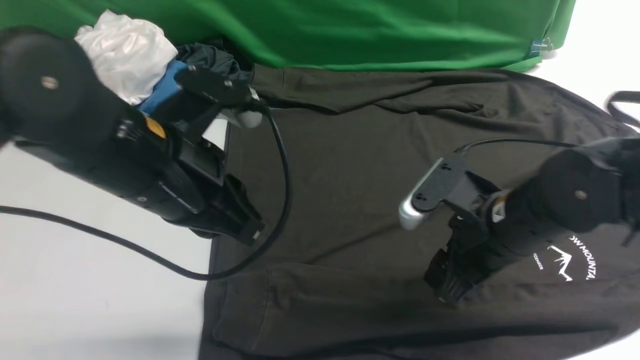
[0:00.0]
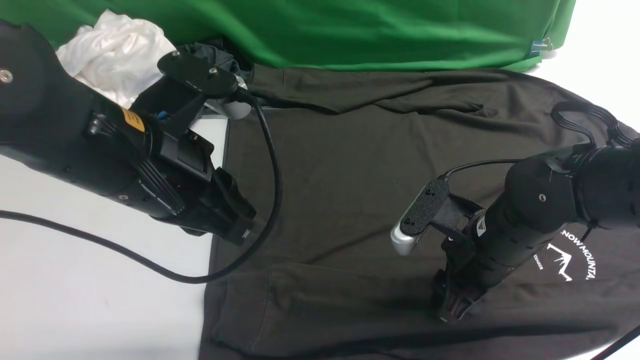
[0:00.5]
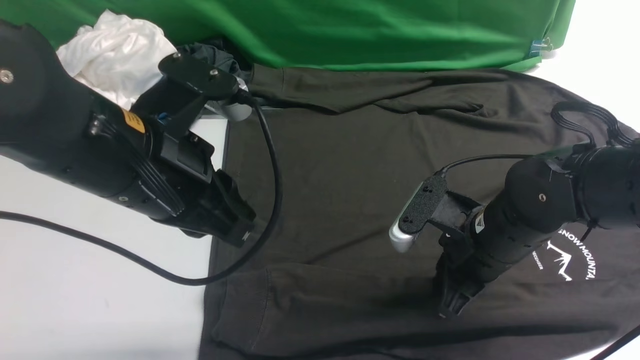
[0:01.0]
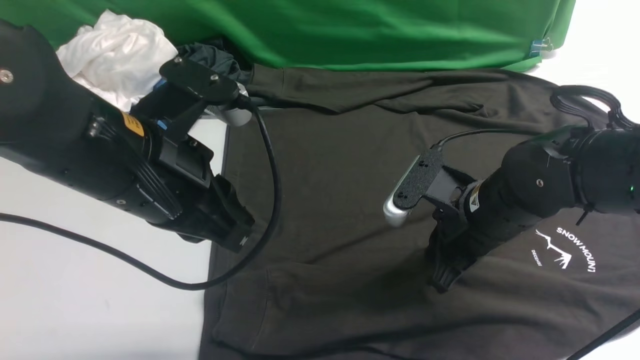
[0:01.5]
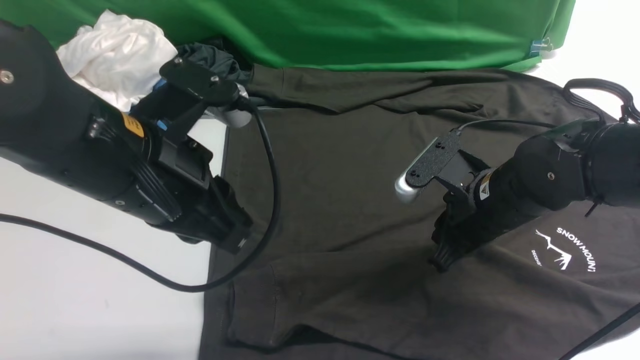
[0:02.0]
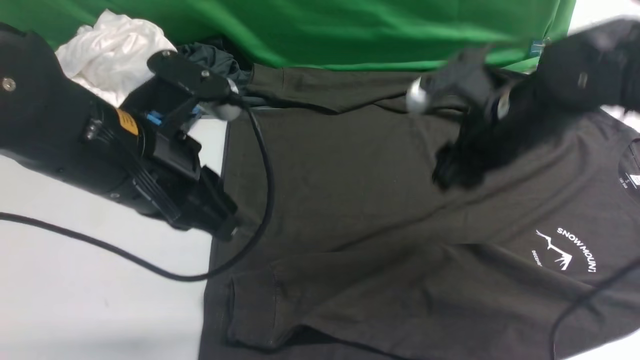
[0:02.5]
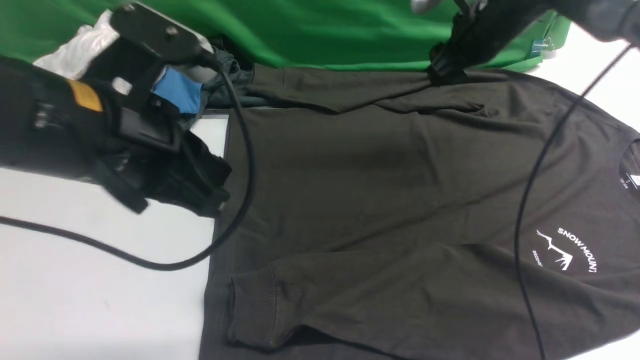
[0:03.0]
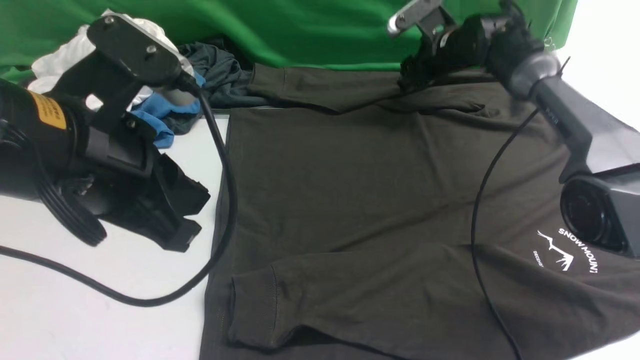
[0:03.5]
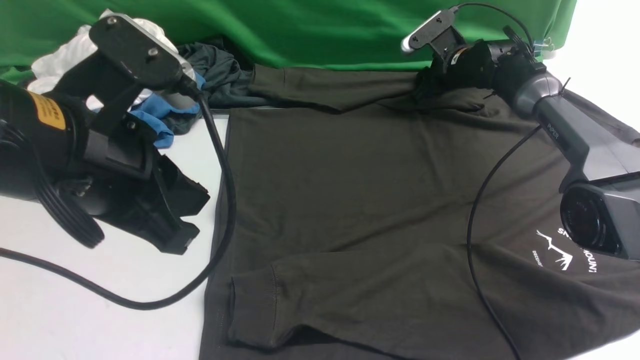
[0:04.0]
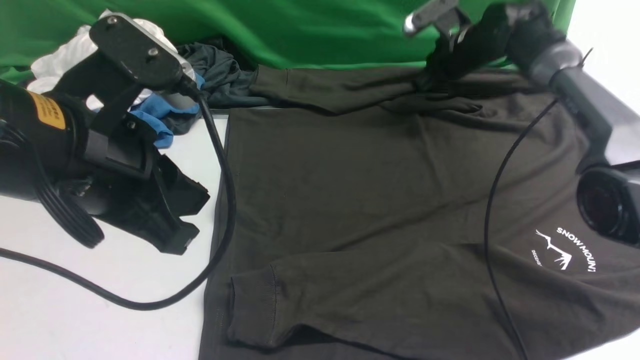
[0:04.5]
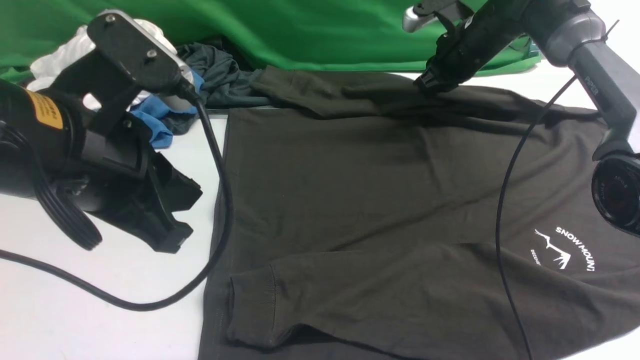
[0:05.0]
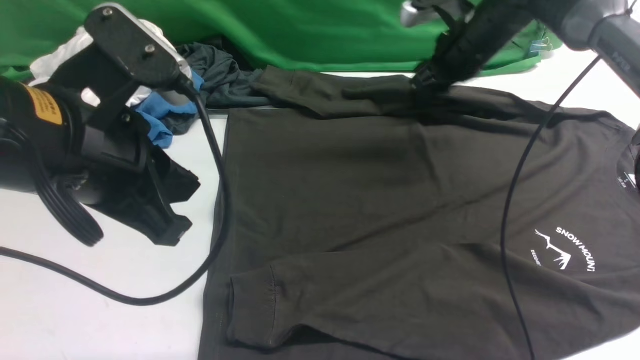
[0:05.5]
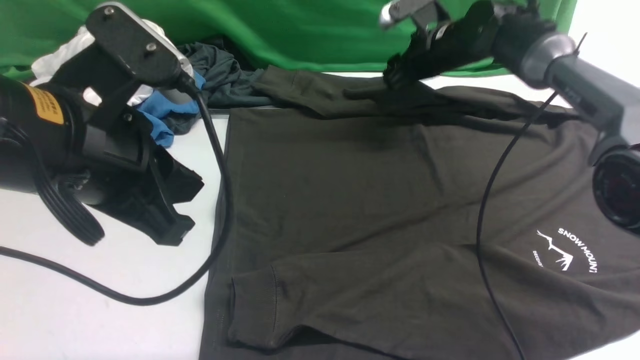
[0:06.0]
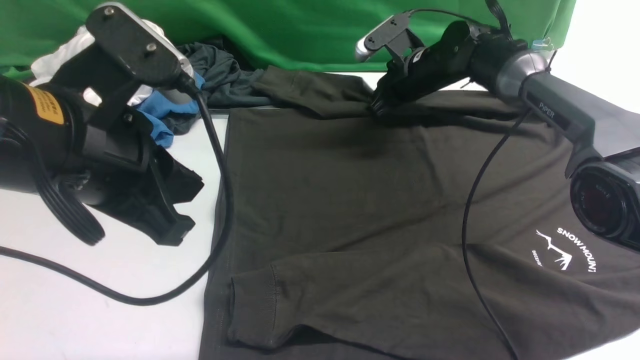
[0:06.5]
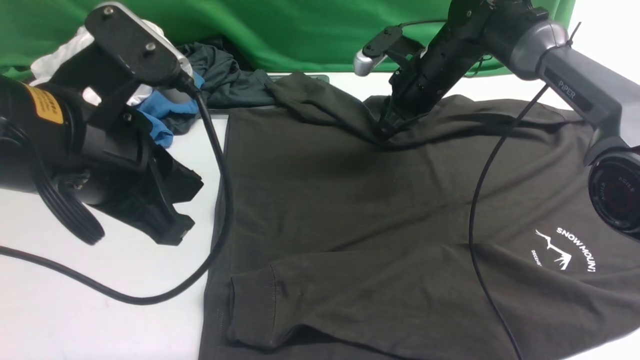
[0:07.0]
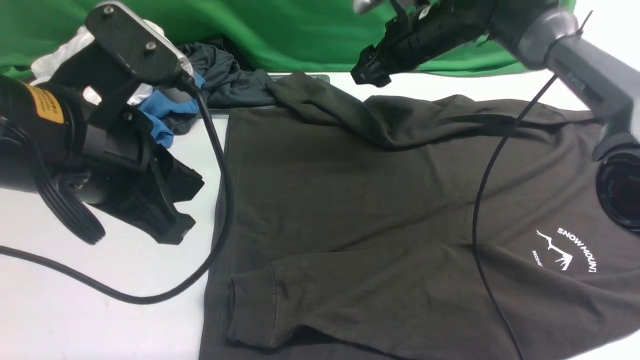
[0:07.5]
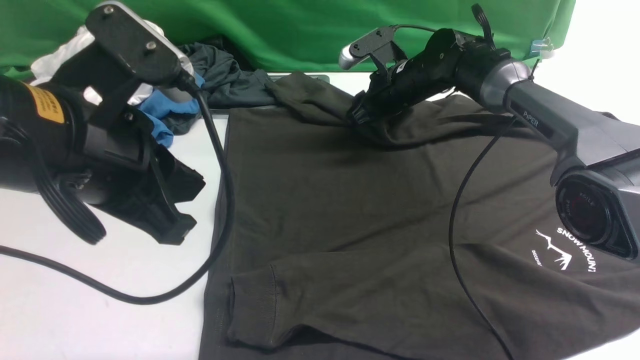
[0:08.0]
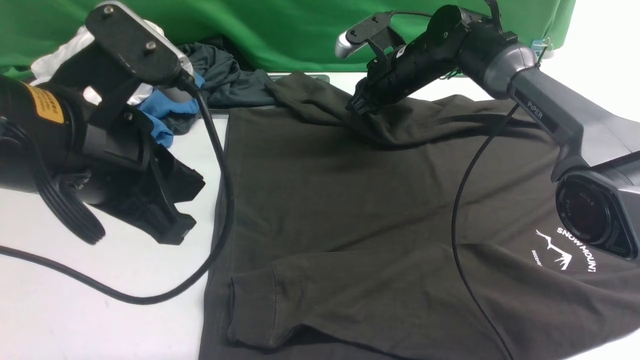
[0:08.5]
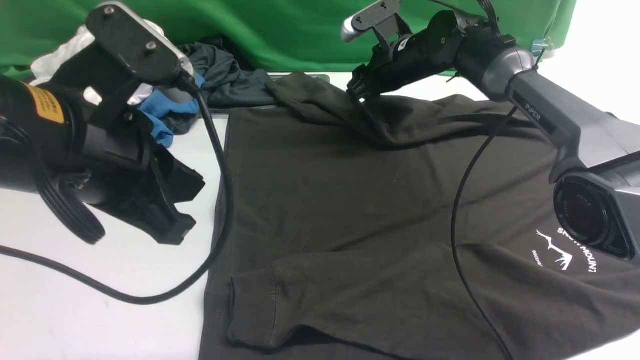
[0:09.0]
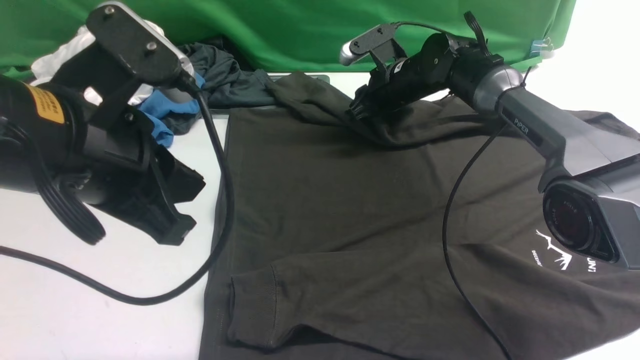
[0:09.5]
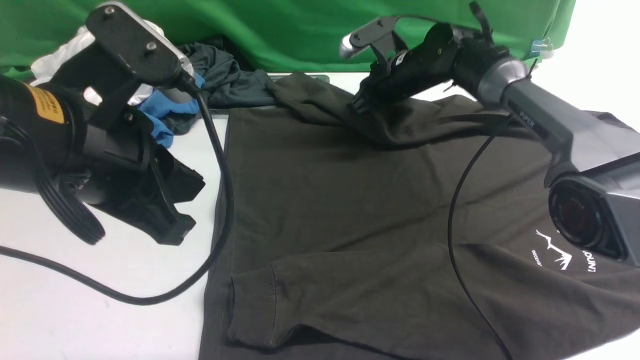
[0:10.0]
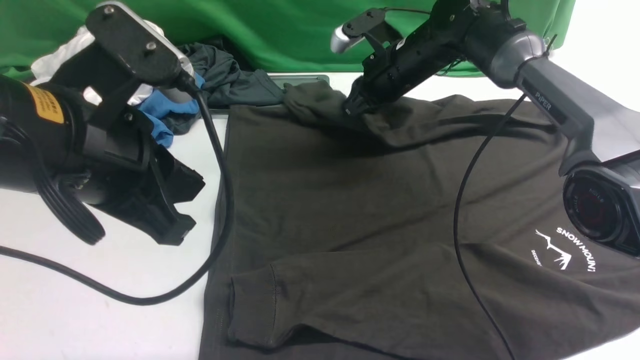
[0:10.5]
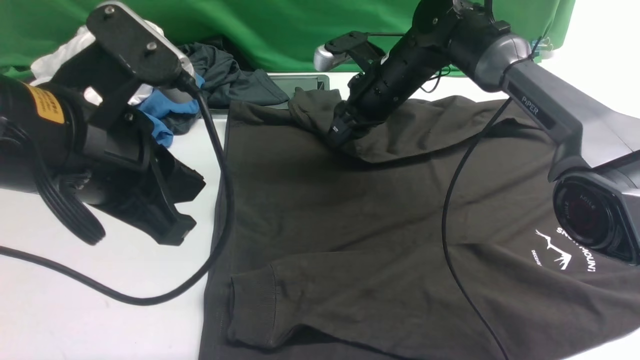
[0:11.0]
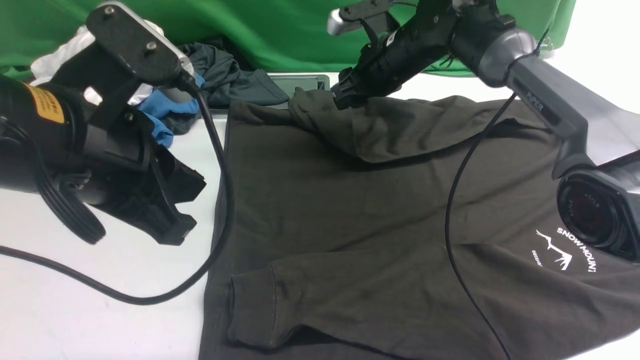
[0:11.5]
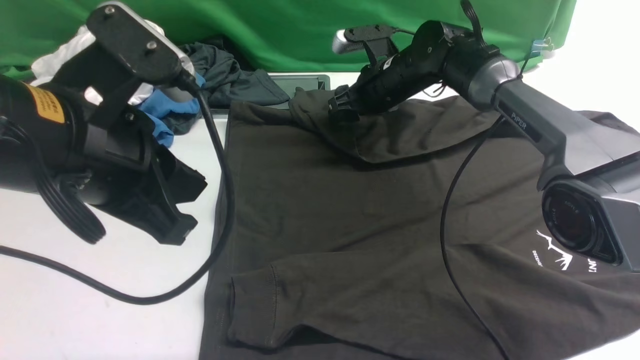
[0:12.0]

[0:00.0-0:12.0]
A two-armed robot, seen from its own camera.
0:00.0 to 0:02.0: The right gripper closes.
0:02.0 to 0:04.0: The right gripper heads forward, covering approximately 30 cm, and opens, then closes again, while the left gripper shifts by some 5 cm.
0:04.0 to 0:06.0: The right gripper shifts some 10 cm upward and to the left, and closes, then reopens.
0:06.0 to 0:08.0: The right gripper shifts by approximately 5 cm, and closes, then reopens.
0:08.0 to 0:10.0: The right gripper closes.
0:10.0 to 0:12.0: The right gripper opens up.

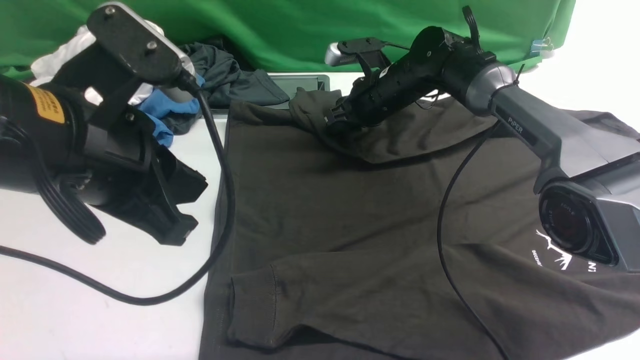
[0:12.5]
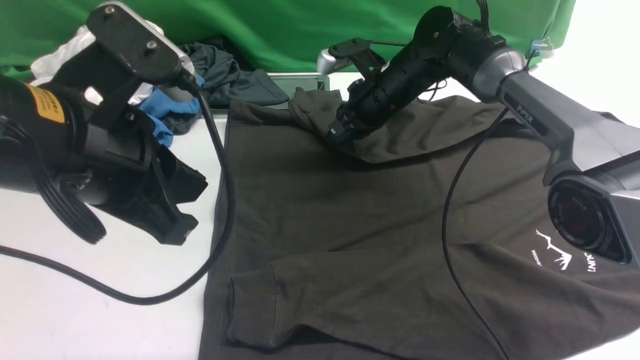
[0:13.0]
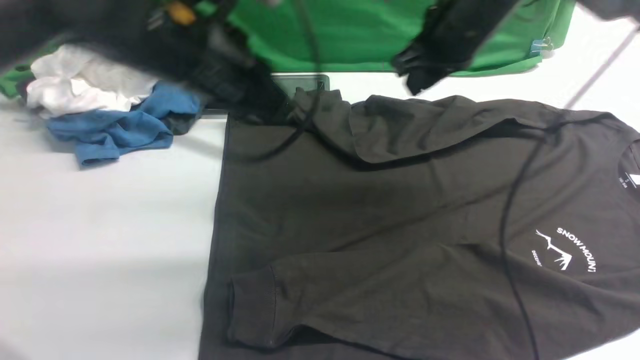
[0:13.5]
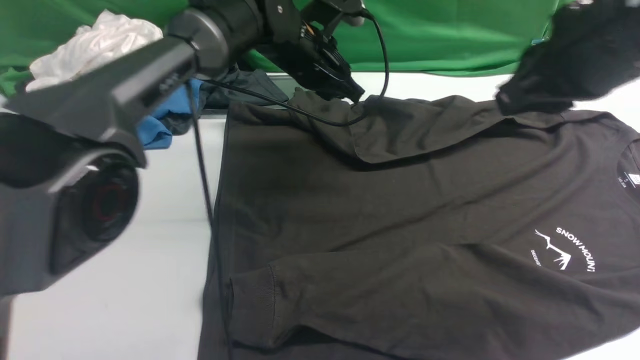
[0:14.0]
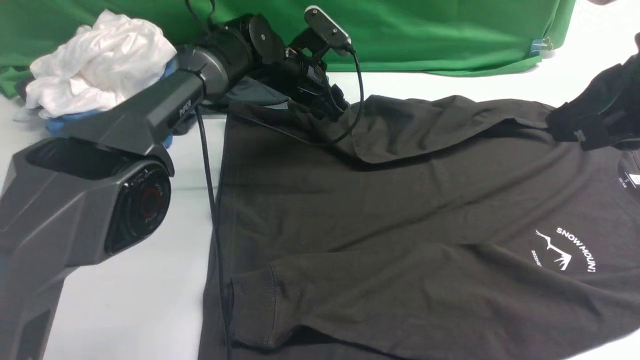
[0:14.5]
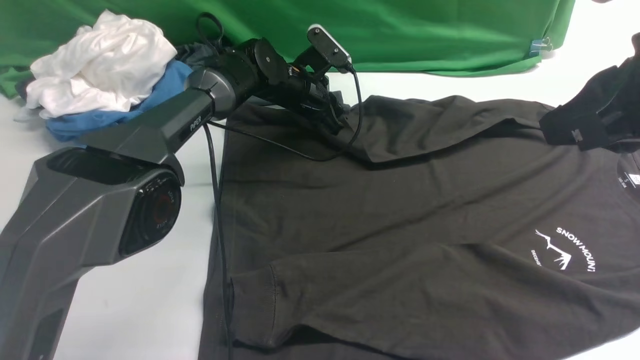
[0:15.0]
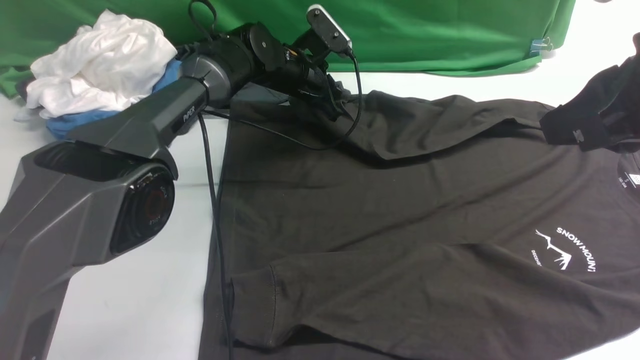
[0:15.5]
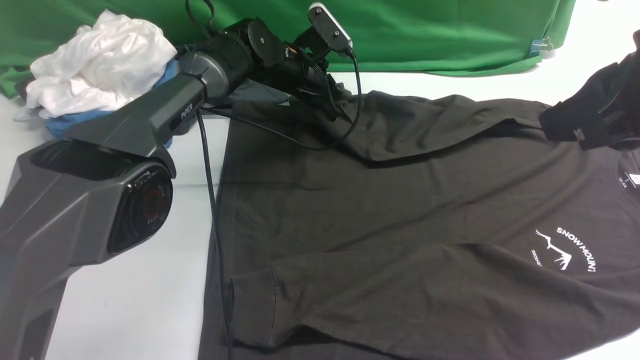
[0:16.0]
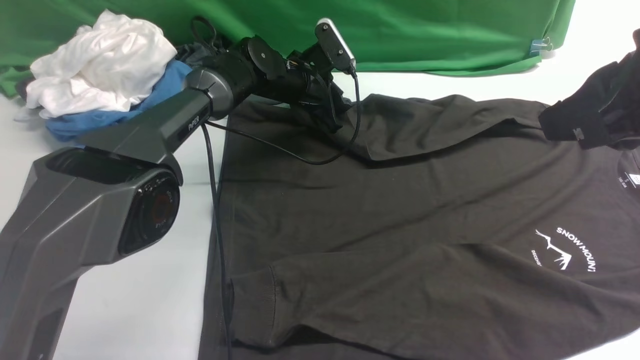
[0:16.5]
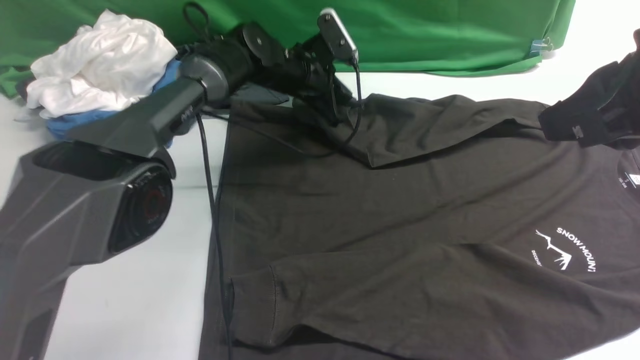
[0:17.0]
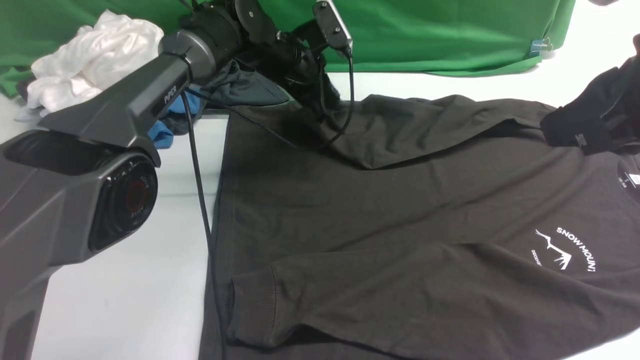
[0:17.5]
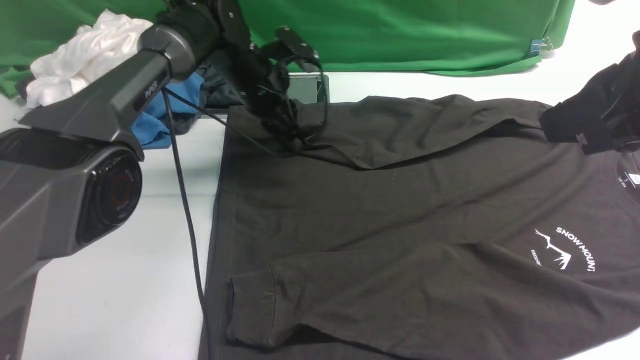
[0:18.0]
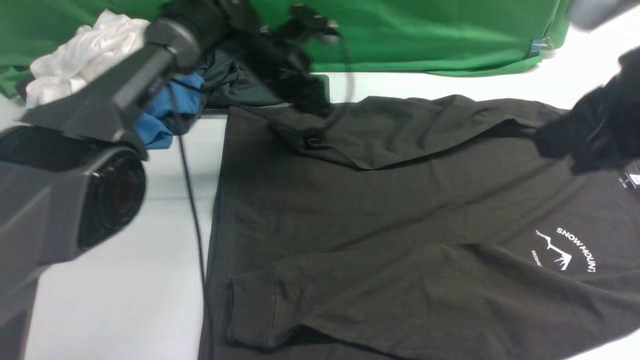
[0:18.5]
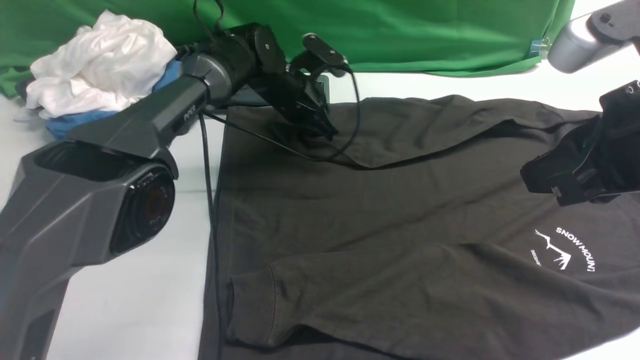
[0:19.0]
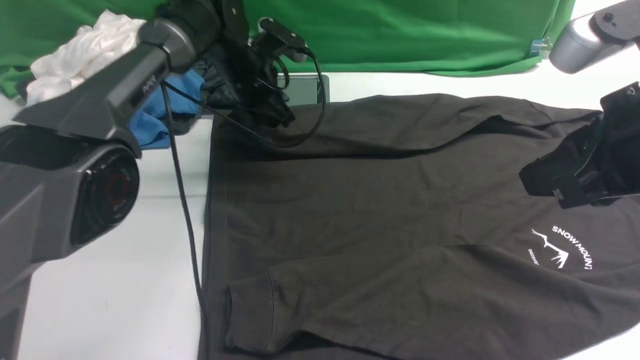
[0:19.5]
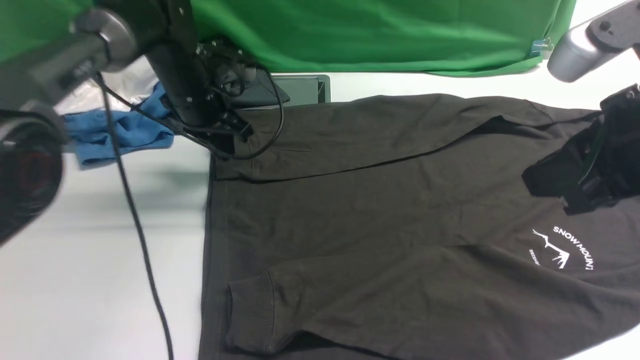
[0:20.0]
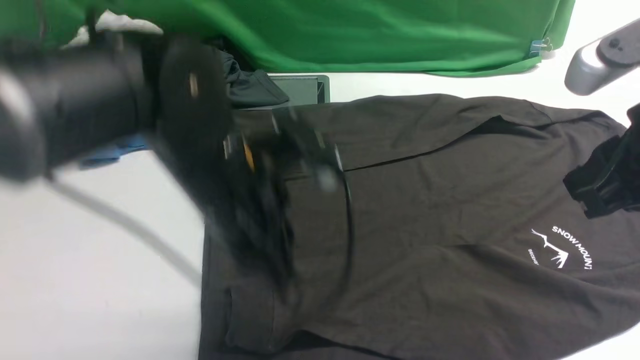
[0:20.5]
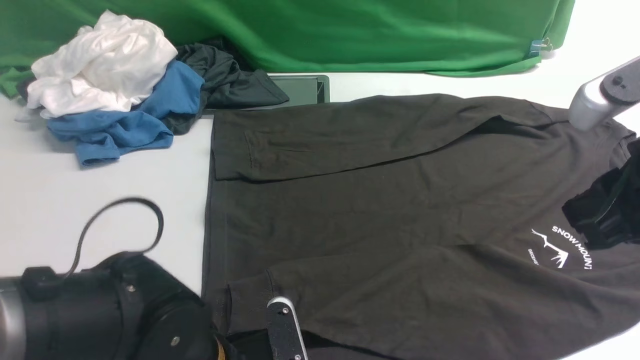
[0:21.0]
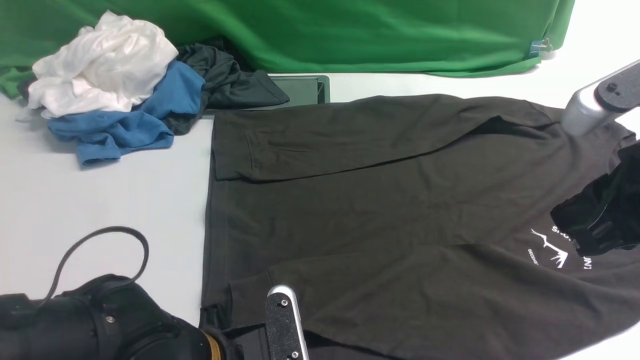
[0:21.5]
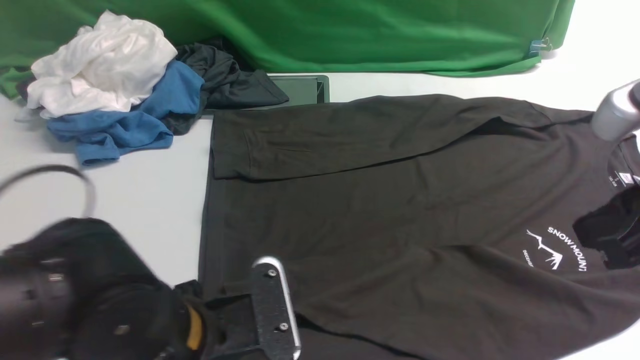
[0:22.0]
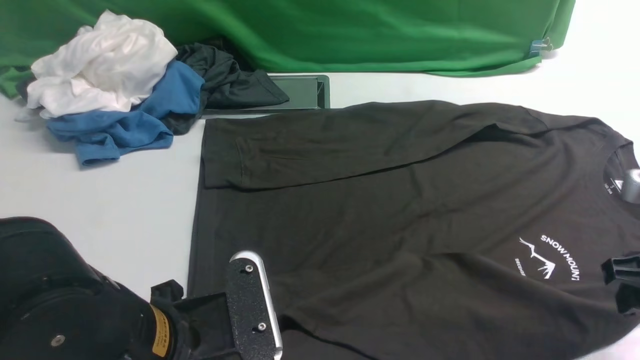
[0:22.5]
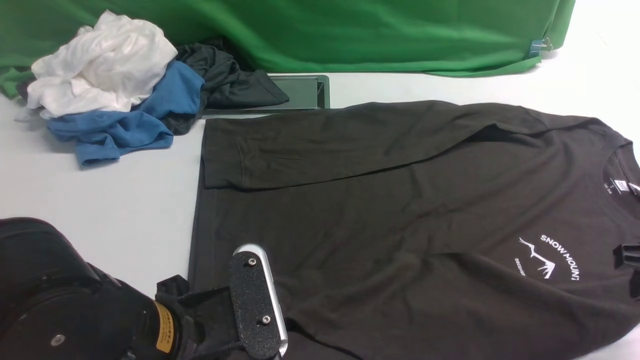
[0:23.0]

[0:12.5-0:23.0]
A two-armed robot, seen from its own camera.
Step, 0:12.5 to 0:20.0: use the left arm to drag and drop the cuff onto the cuff closest to the left arm.
0:12.5 to 0:14.5: The right gripper heads backward, upward and to the right, covering about 40 cm. Meanwhile the left gripper shifts some 40 cm forward and downward, and opens up.
0:14.5 to 0:16.5: The left gripper closes its fingers.
0:16.5 to 0:19.0: The left gripper closes its fingers.
0:19.0 to 0:21.0: The left gripper travels backward by roughly 40 cm, and opens.
0:21.0 to 0:23.0: The right gripper is displaced downward and to the right by some 15 cm, and opens. The left gripper moves upward, approximately 5 cm, and closes its fingers.
